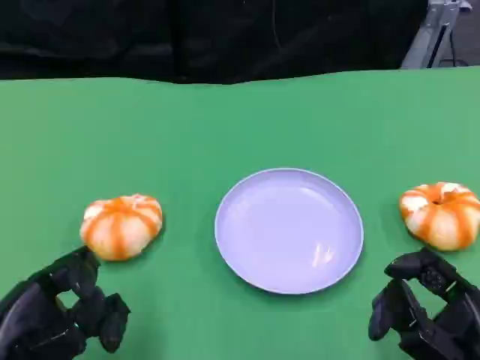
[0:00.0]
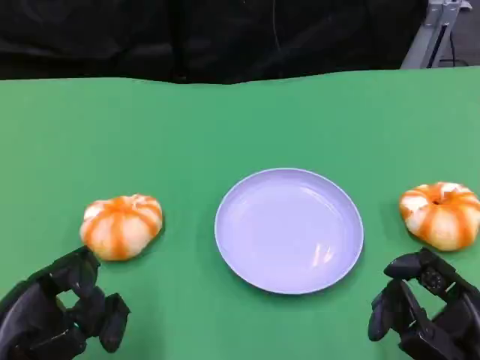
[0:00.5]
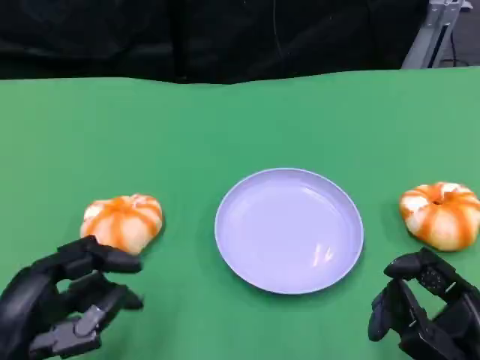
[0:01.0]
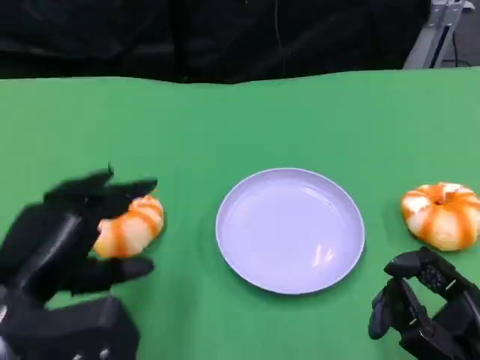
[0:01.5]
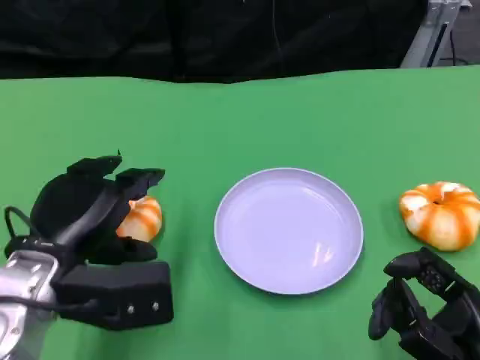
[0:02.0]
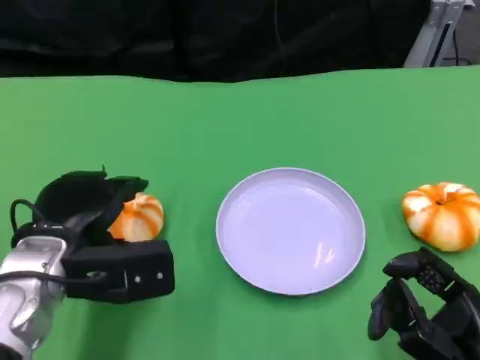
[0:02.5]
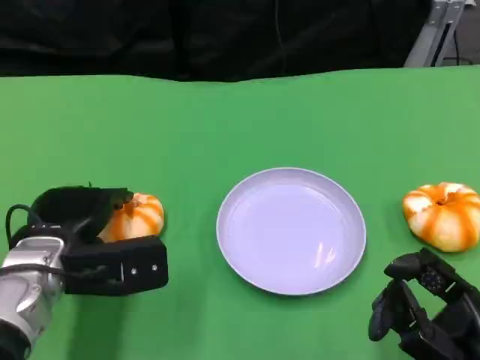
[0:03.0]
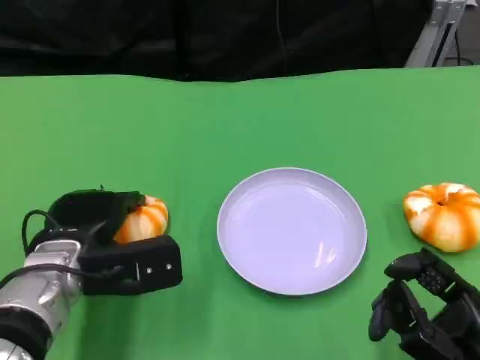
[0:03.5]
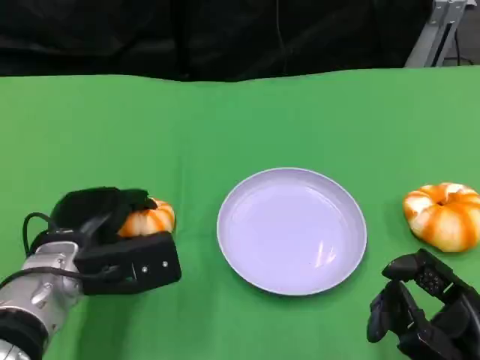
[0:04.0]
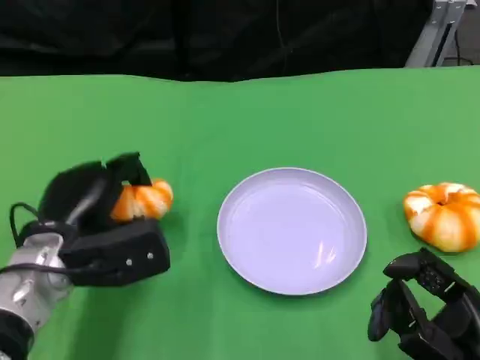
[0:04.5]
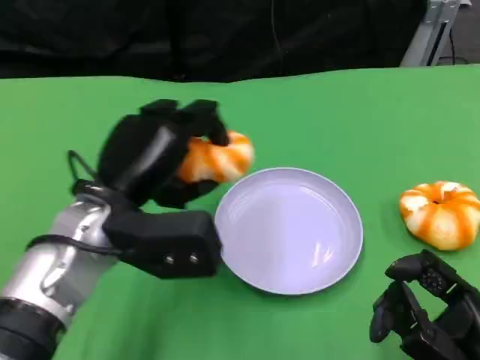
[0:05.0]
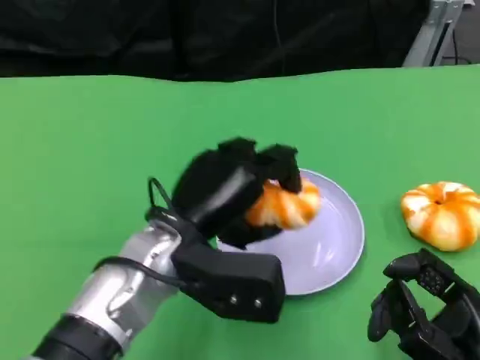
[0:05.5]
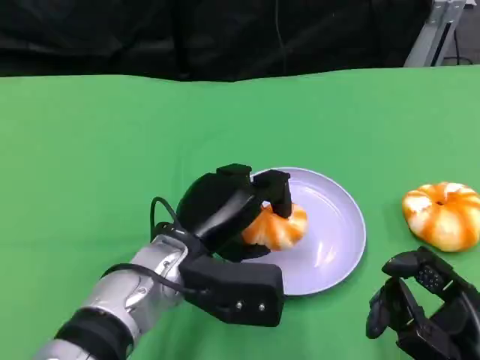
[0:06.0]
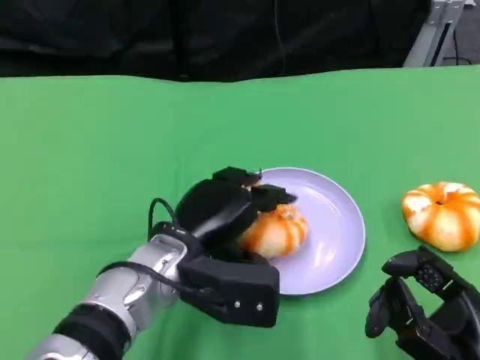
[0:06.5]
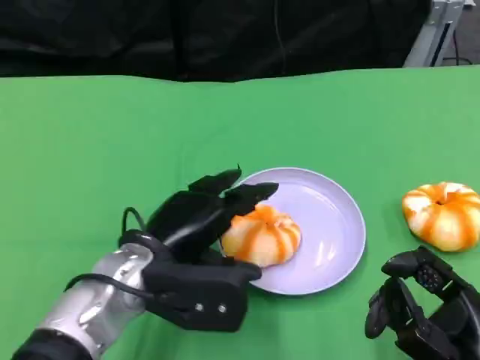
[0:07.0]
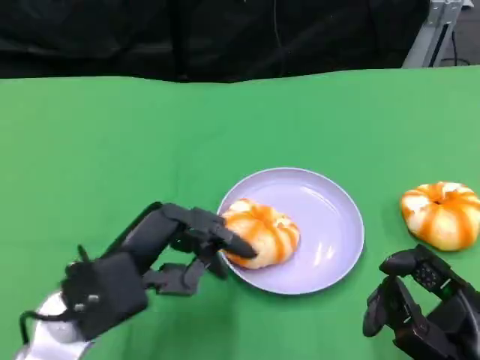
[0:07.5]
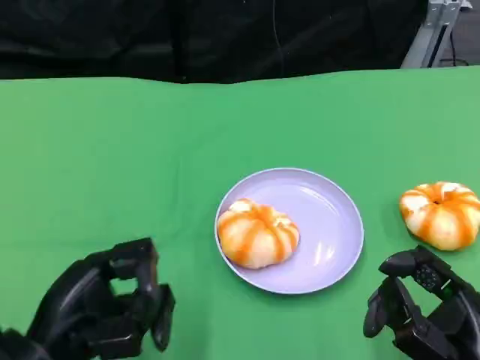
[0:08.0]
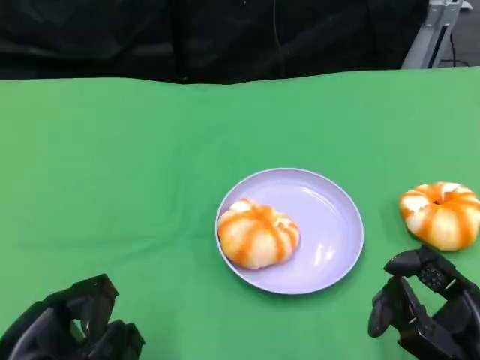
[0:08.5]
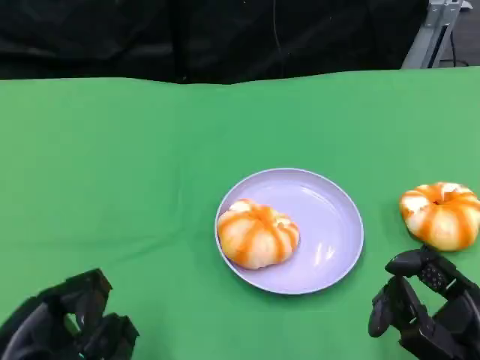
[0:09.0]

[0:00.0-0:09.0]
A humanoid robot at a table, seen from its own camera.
Task of the whole recording: Grasp the bread from the table and place it into the plate.
0:00.0 to 0:02.0: The left hand shifts approximately 10 cm forward and to the right.
0:04.5 to 0:07.0: The left hand travels to the right by some 5 cm.
0:07.0 to 0:09.0: The left hand goes about 20 cm to the left and backward.

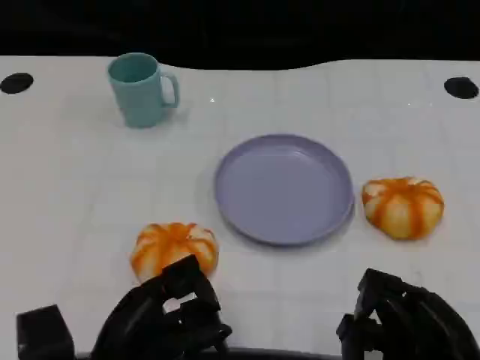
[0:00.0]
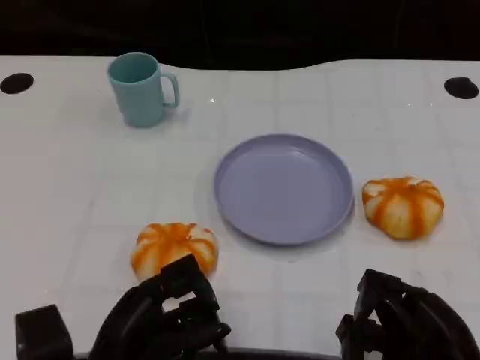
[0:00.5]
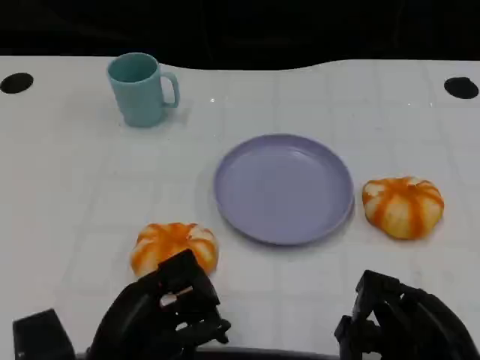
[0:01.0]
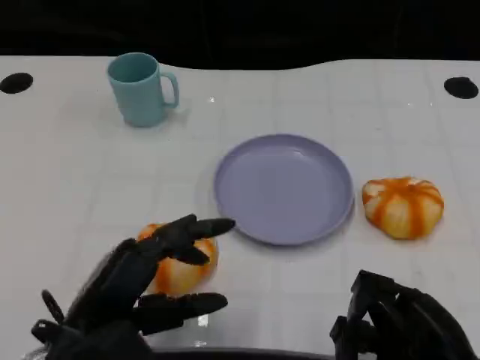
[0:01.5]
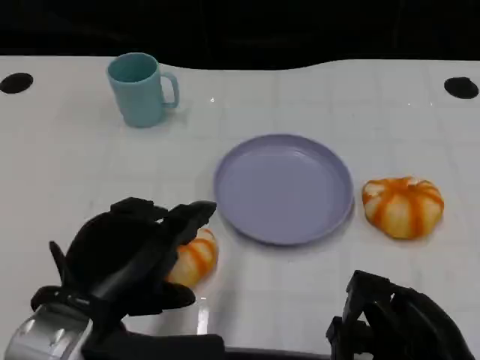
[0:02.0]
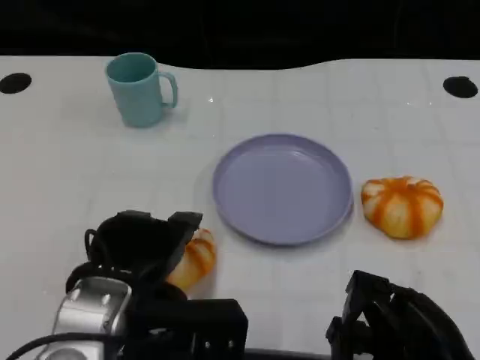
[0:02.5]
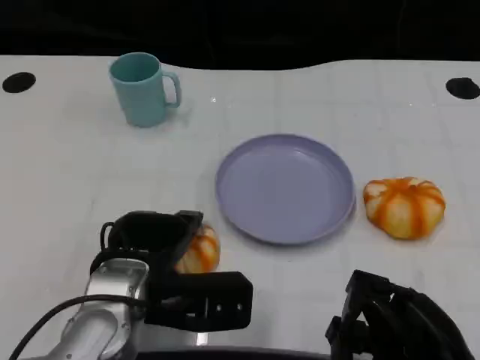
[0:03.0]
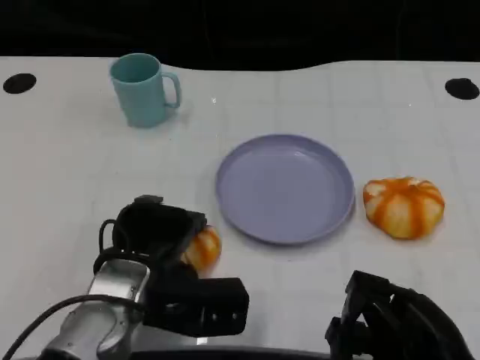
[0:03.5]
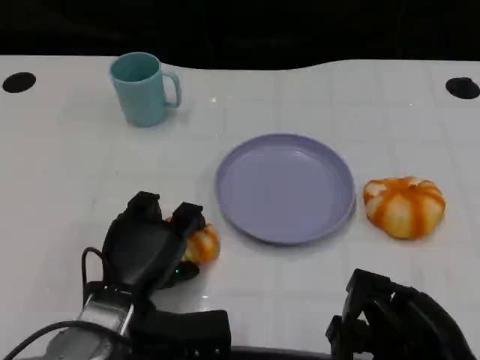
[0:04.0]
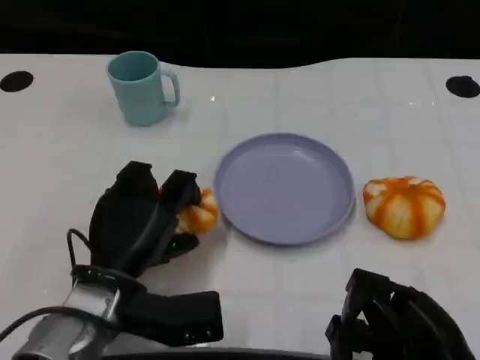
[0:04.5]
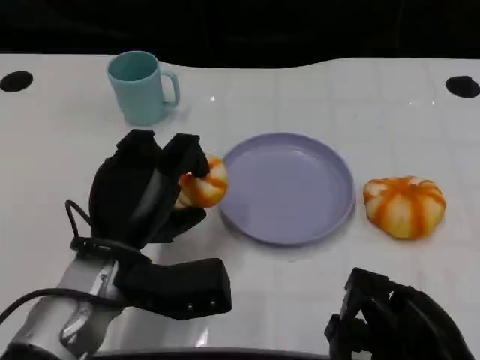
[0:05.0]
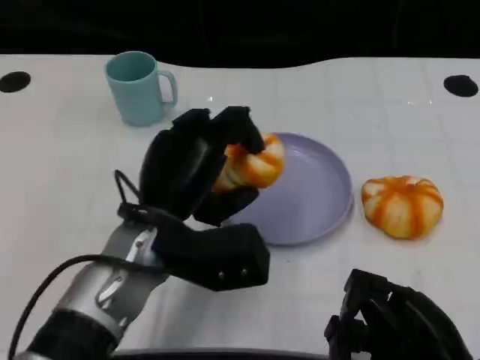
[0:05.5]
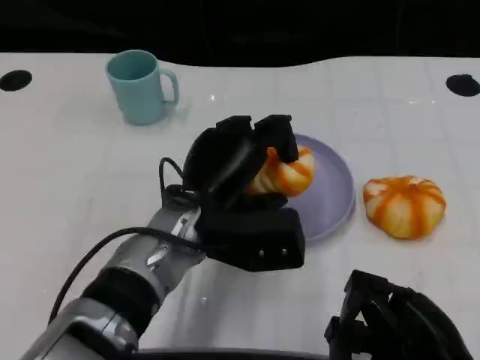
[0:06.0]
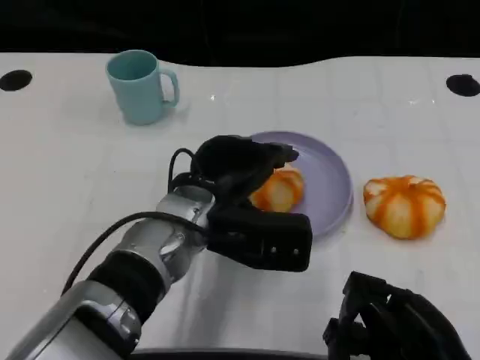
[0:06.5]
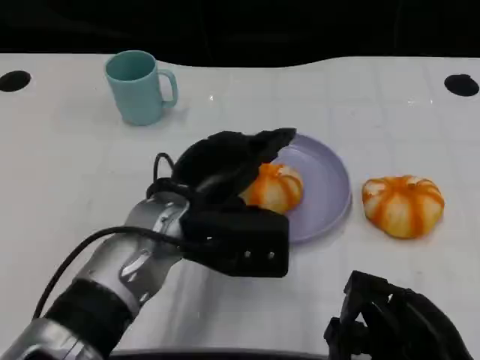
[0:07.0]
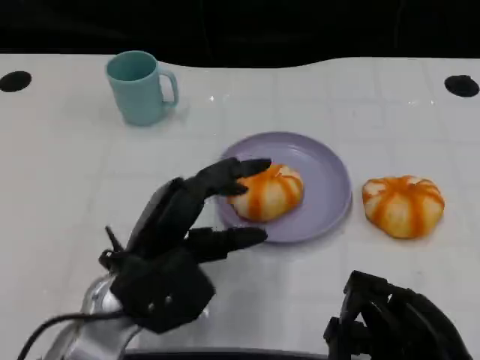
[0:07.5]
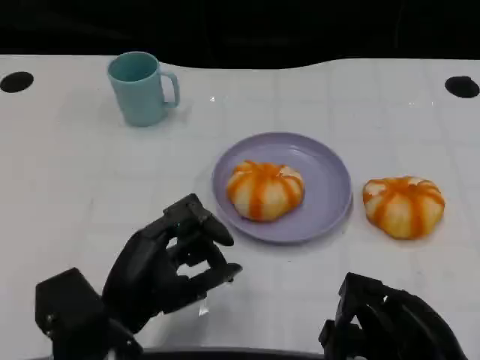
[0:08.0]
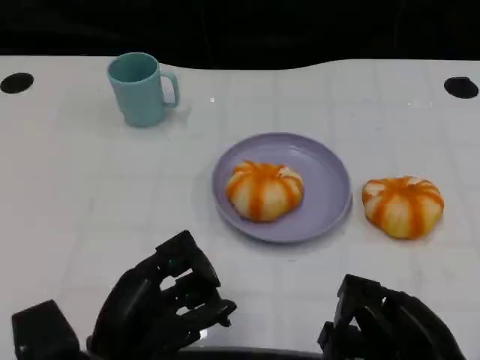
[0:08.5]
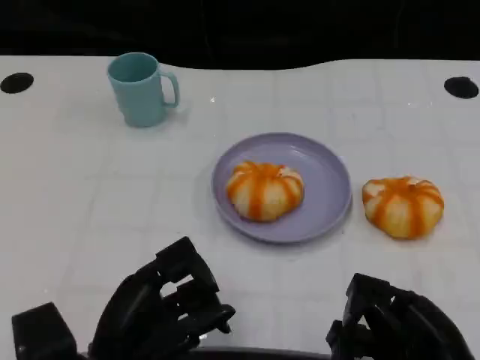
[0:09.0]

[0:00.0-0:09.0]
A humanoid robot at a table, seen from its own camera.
Task of the whole recording: Grasp the bread from the table and place it into the plate.
0:00.0 to 0:02.0: The left hand shifts some 10 cm upward.
0:02.0 to 0:04.5: The left hand travels downward and forward by about 10 cm.
0:04.5 to 0:07.0: The left hand goes about 10 cm upward and to the right.
0:07.0 to 0:09.0: The left hand is displaced backward, to the left and downward by roughly 15 cm.

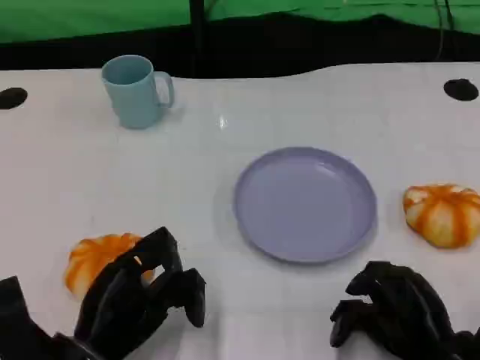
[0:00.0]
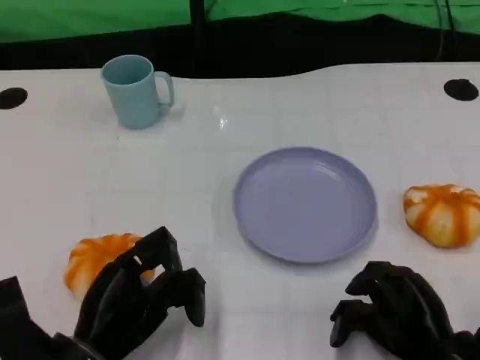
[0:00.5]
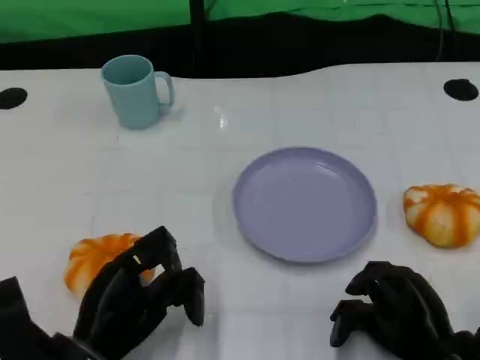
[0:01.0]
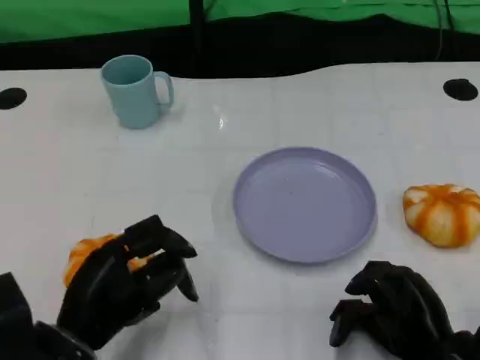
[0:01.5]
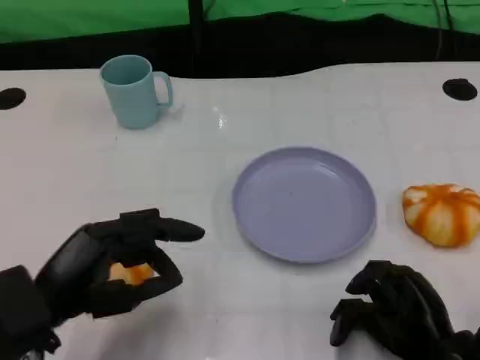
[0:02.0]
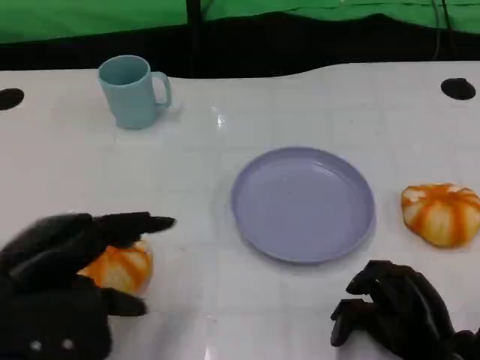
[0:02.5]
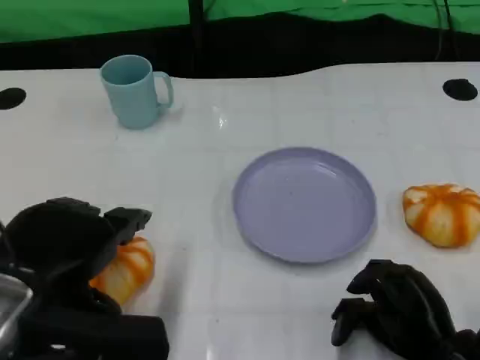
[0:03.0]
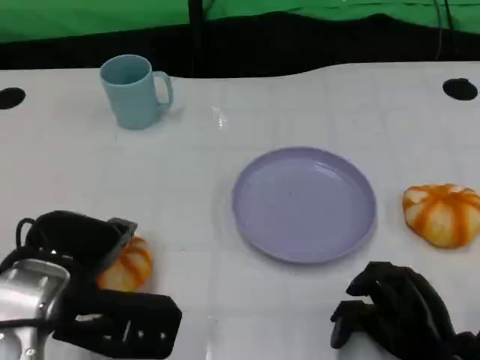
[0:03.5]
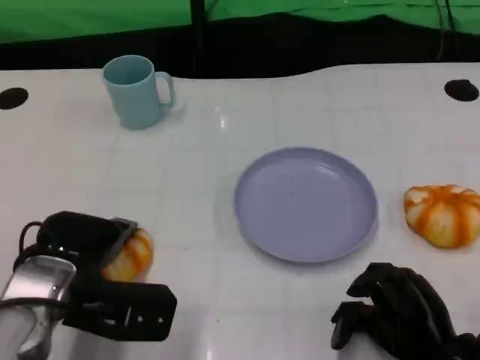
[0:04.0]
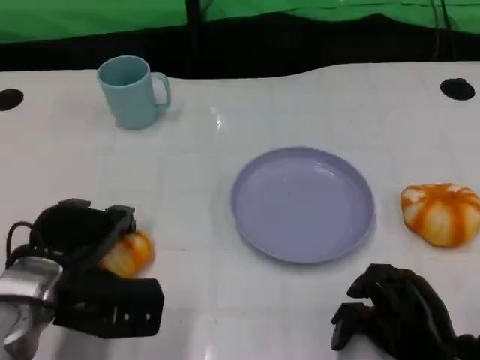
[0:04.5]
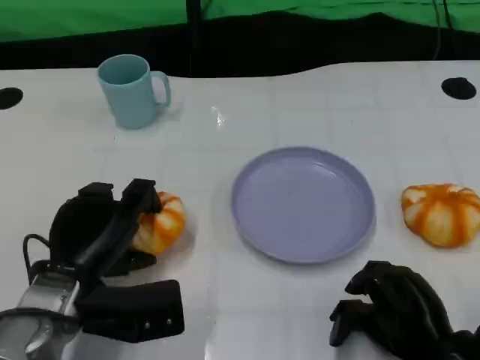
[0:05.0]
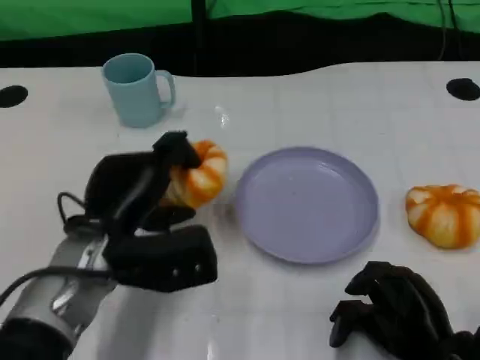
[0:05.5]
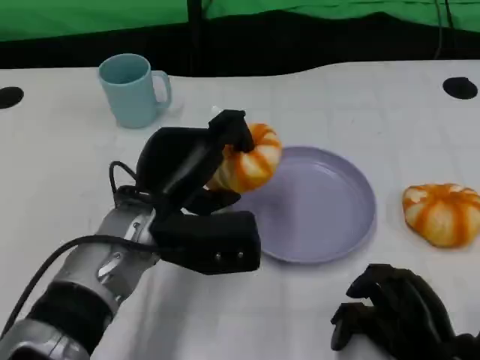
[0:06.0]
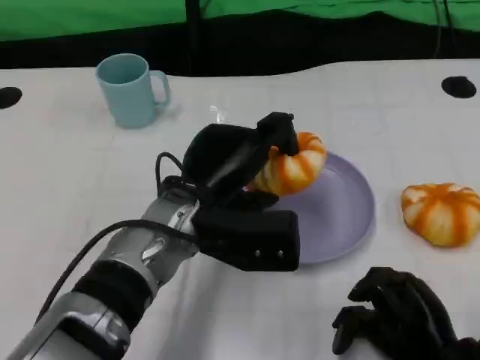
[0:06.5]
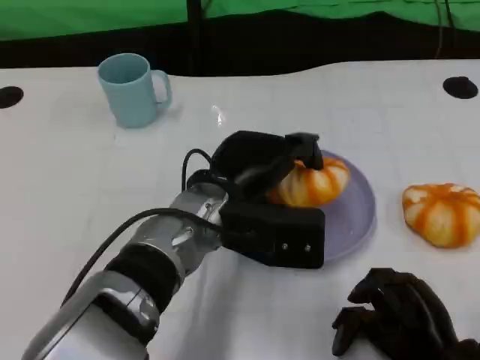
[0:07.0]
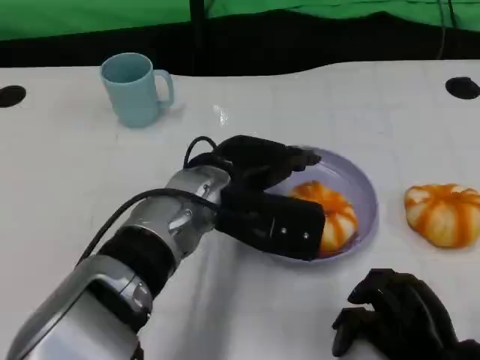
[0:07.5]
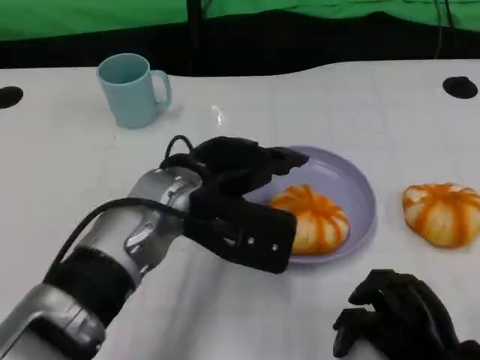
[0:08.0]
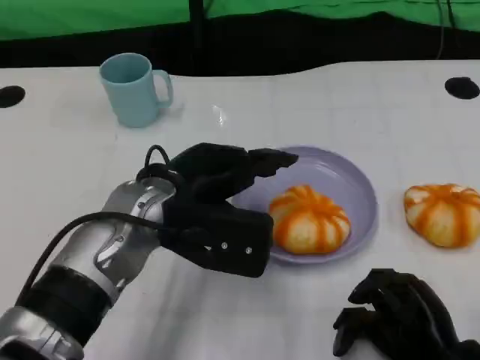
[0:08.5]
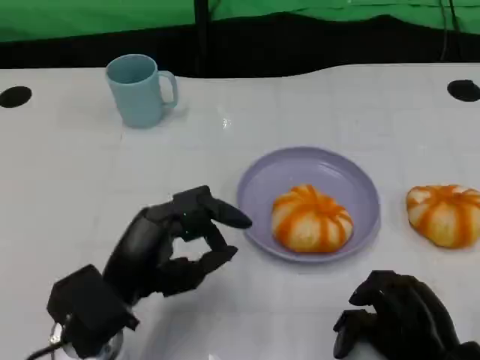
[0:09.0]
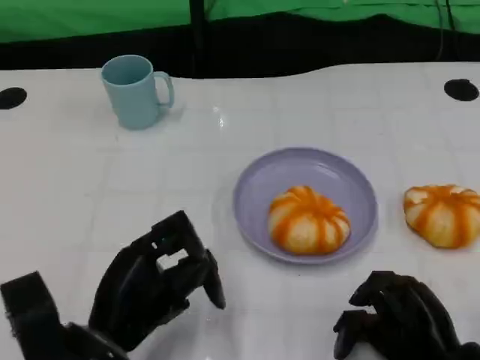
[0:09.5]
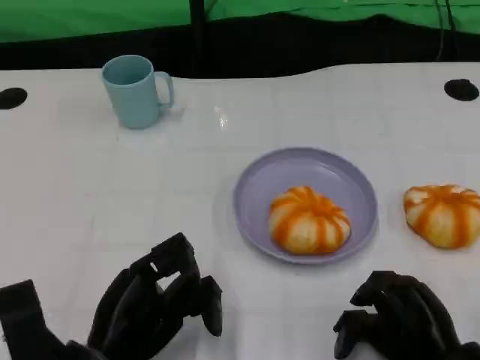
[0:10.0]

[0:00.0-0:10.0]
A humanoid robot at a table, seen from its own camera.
Task of the whole recording: Grasp the bread from the table and place it into the plate.
0:00.0 to 0:02.0: The left hand moves upward, some 5 cm.
0:02.0 to 0:04.0: The left hand heads forward, covering approximately 5 cm, and travels upward and back again, approximately 5 cm each way.
0:04.0 to 0:06.0: The left hand travels to the right by some 10 cm.
0:08.0 to 0:10.0: The left hand is displaced backward, downward and to the left by roughly 20 cm.
